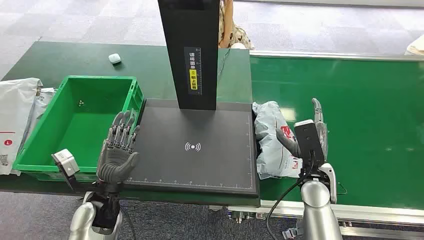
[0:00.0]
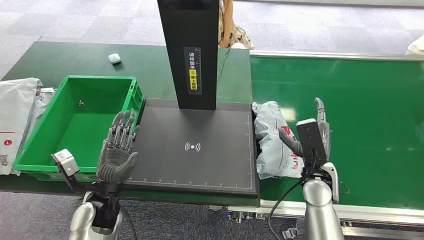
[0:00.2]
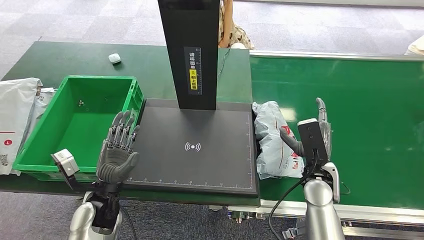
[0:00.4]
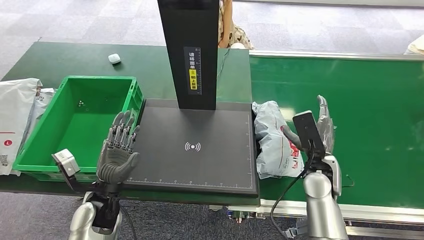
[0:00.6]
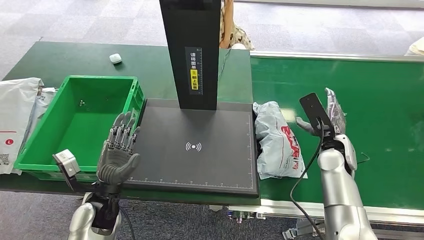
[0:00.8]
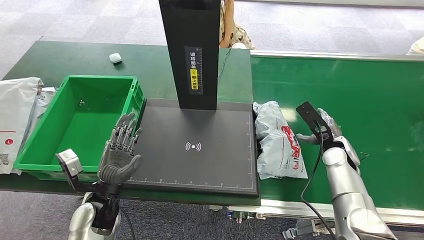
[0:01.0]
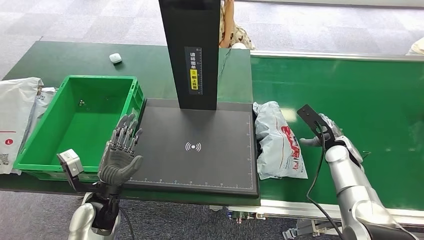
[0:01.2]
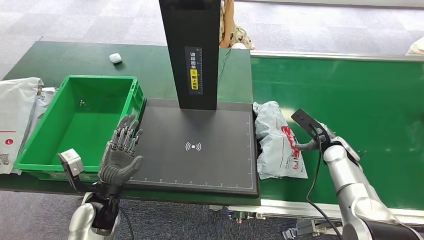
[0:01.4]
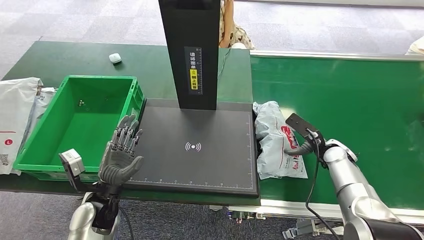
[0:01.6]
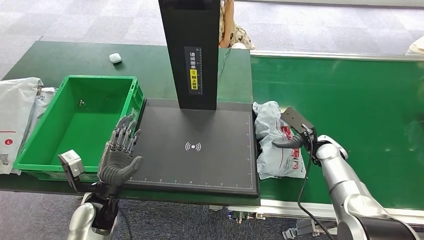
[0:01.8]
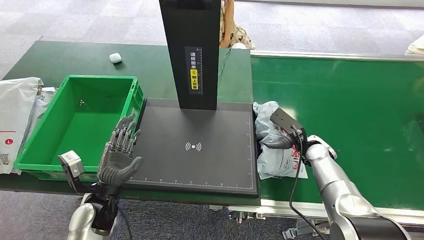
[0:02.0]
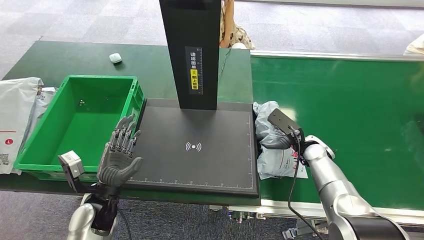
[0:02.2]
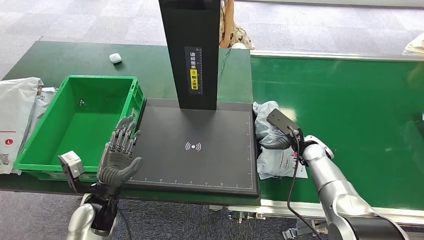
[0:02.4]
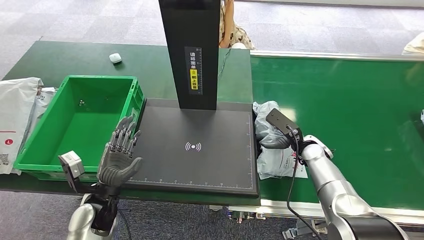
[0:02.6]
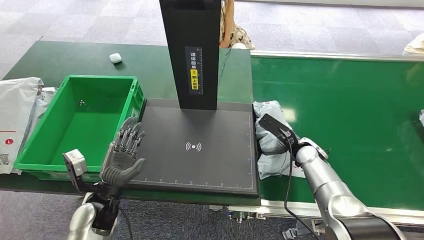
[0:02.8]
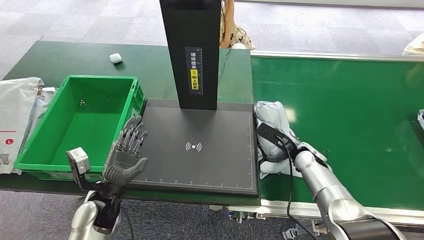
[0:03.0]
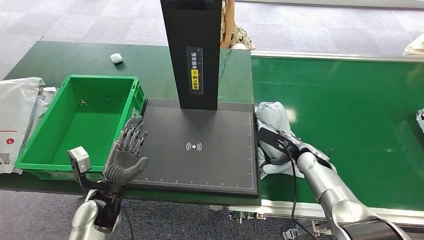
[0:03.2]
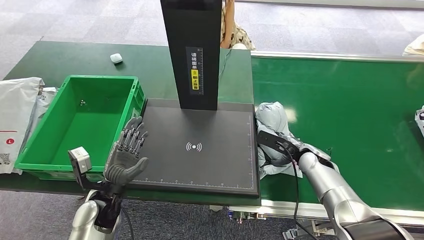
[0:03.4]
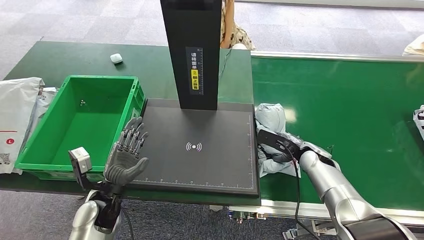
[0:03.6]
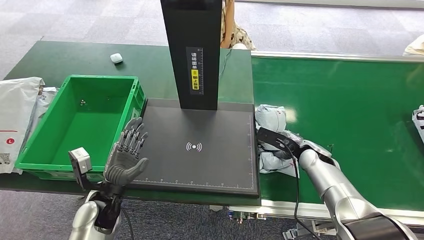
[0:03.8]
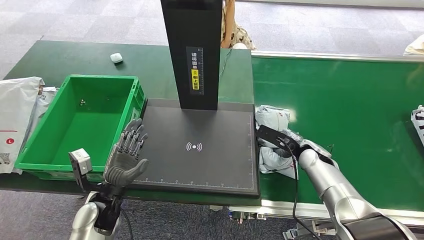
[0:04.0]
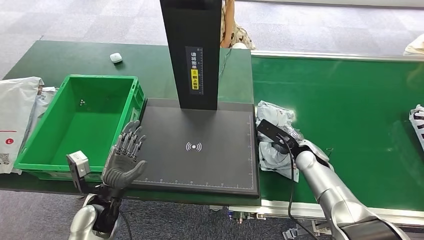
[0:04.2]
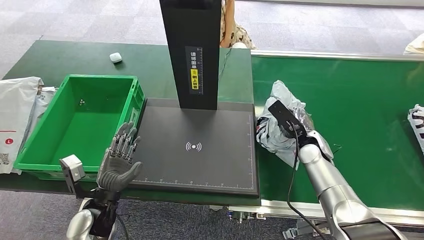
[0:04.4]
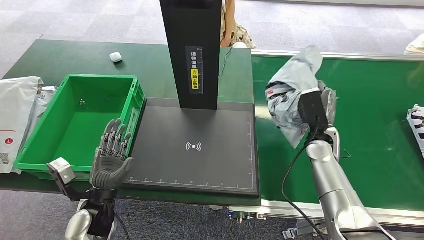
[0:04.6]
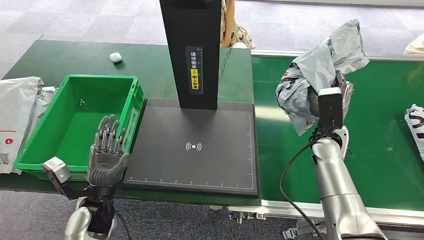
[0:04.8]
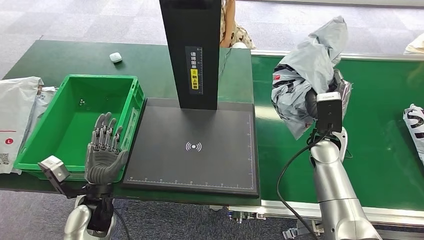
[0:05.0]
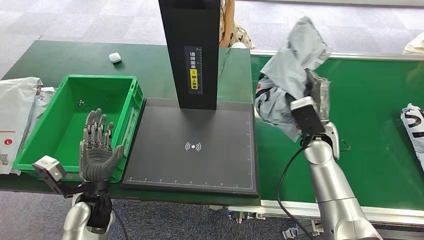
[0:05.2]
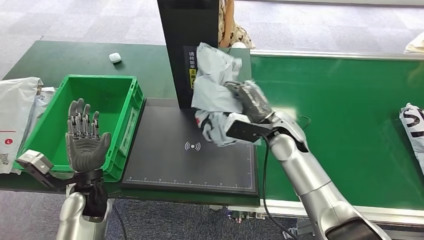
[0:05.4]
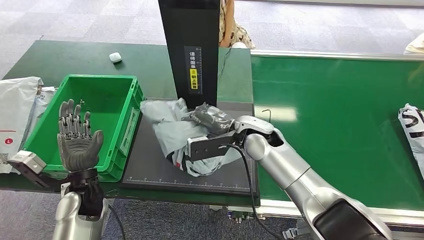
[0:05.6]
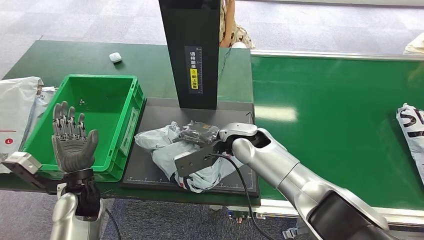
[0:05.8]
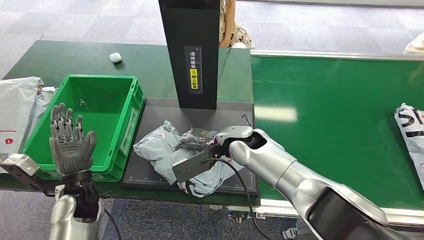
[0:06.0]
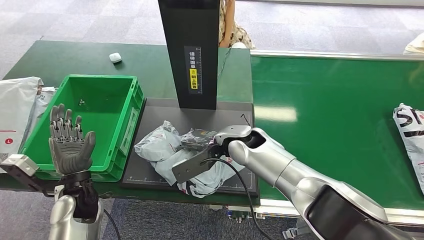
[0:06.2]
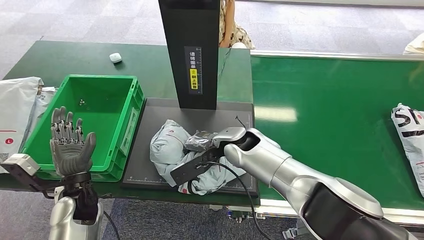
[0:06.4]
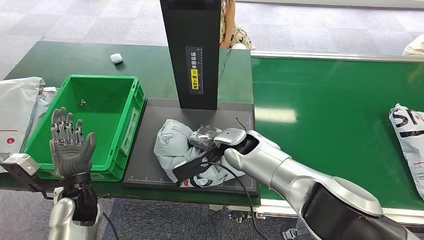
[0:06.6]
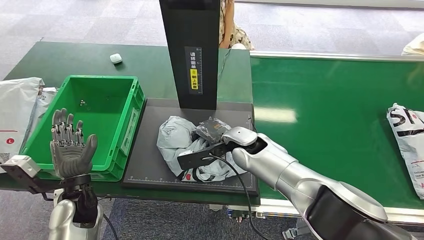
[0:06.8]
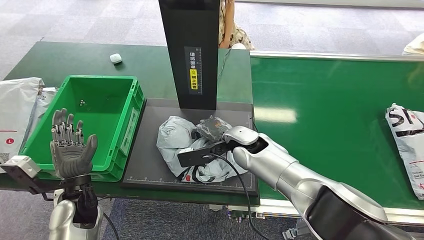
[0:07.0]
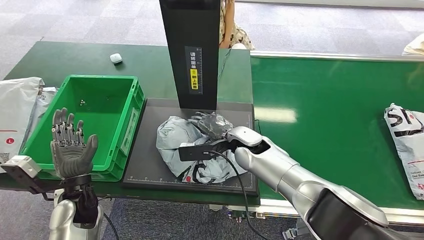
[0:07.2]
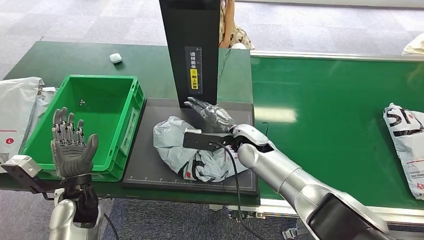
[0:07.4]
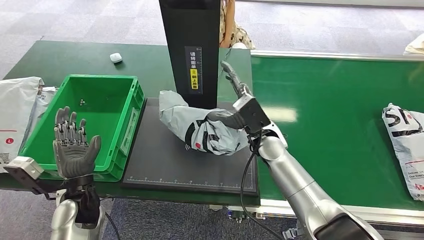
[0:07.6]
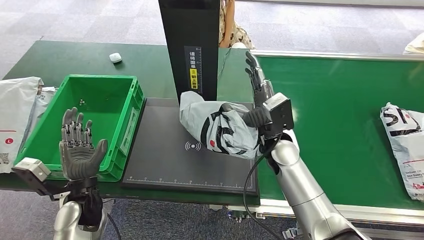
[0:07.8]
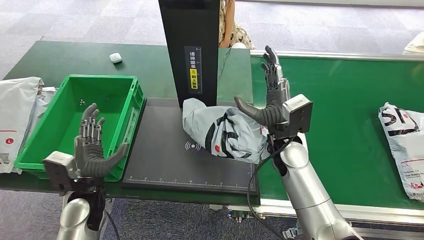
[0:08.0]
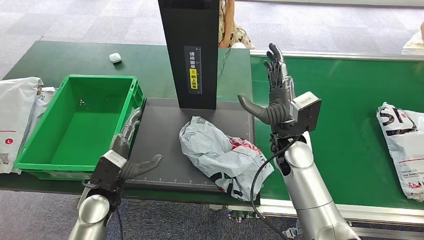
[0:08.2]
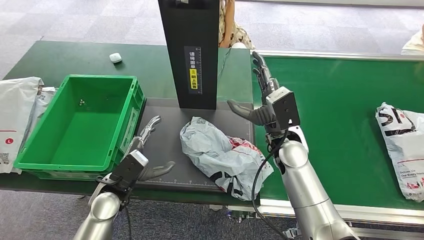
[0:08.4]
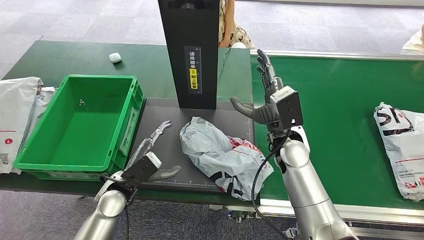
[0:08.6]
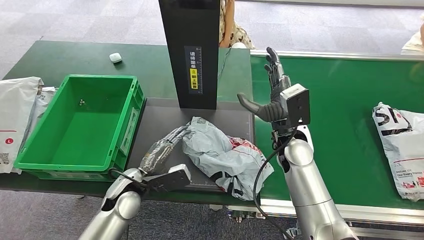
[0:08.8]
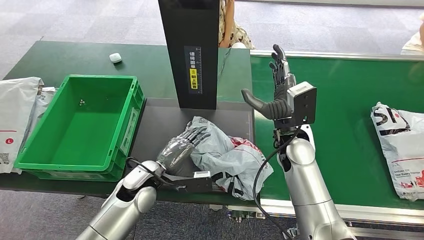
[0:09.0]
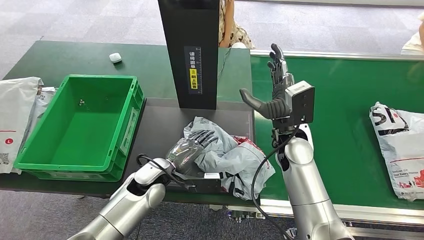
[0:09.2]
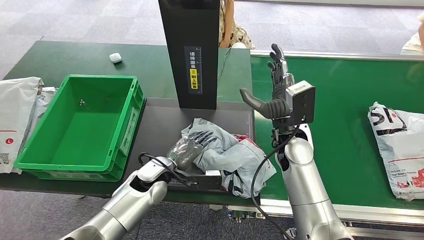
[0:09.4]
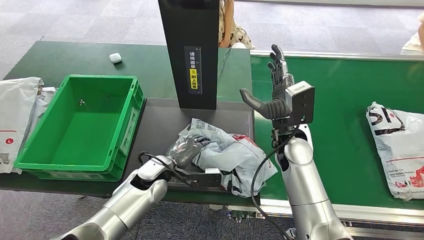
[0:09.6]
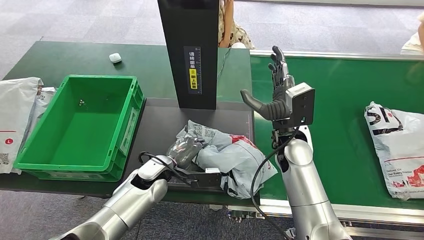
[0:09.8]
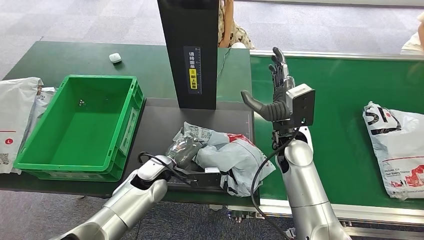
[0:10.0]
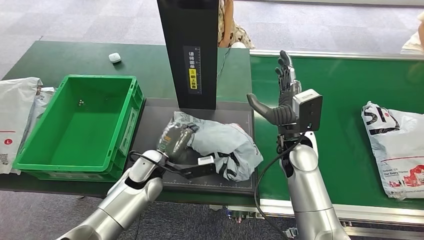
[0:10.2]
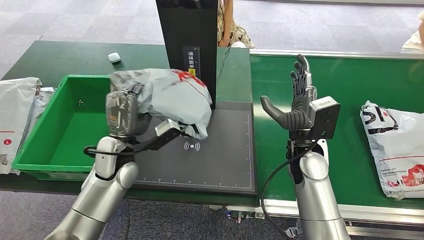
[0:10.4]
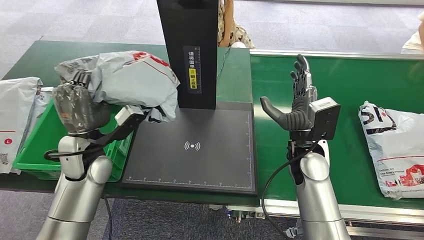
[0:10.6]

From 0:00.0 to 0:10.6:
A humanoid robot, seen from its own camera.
Step, from 0:00.0 to 0:04.6: Pick up the package from the conveyor belt.
Step, from 0:04.8 to 0:08.6: Place the package onto the inbound machine.
Step, from 0:08.8 to 0:10.4: Pick up the package from the inbound machine.
From 0:01.6 to 0:03.0: The right hand heads to the left, covering roughly 5 cm.
From 0:03.0 to 0:04.6: The right hand is displaced upward by roughly 5 cm.

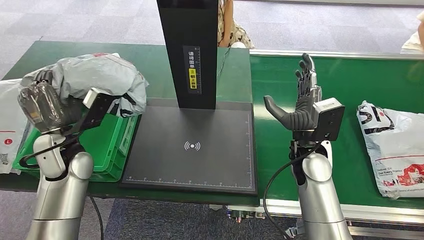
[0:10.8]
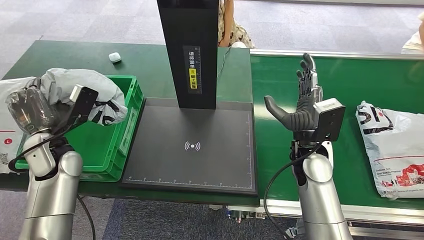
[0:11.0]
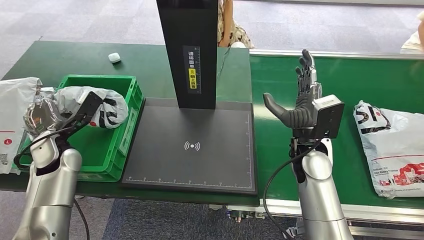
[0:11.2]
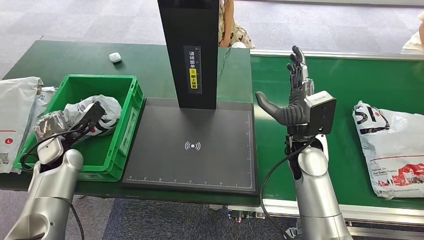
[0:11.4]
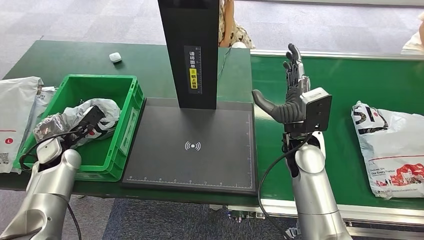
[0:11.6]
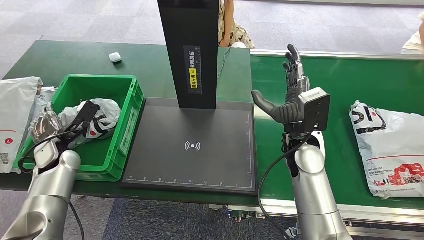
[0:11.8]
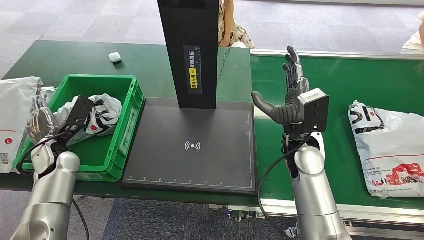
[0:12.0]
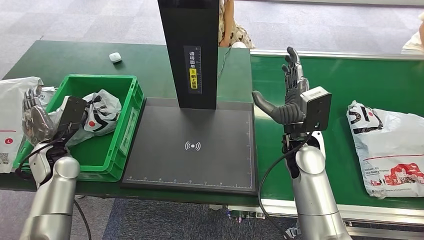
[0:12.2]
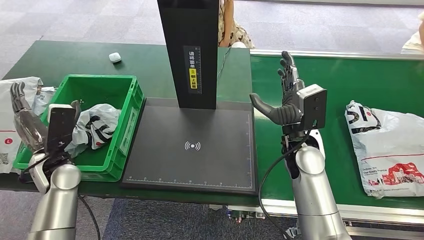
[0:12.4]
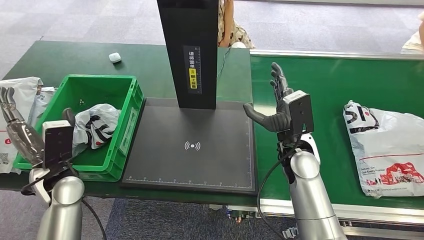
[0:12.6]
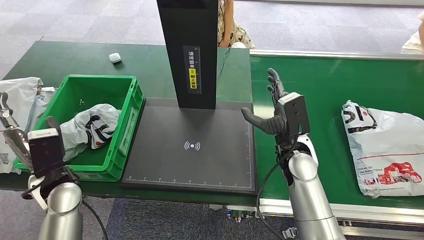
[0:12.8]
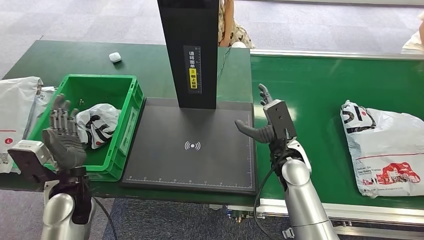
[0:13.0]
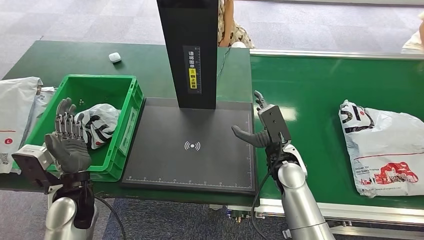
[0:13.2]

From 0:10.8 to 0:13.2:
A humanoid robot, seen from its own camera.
Step, from 0:10.8 to 0:13.2: Place the package into the parcel locker.

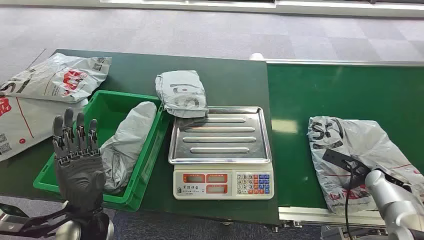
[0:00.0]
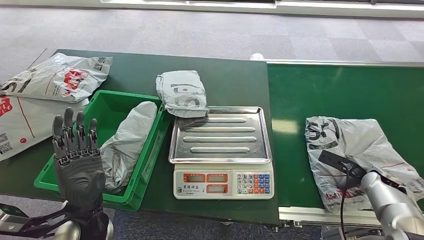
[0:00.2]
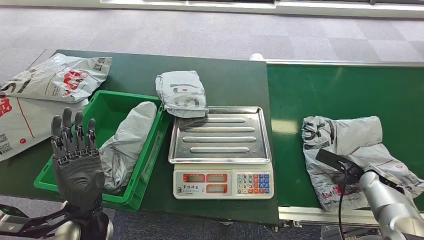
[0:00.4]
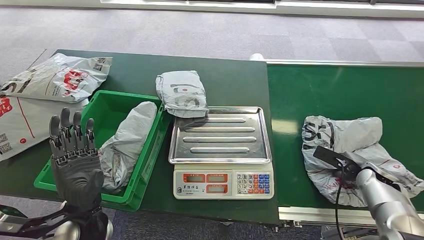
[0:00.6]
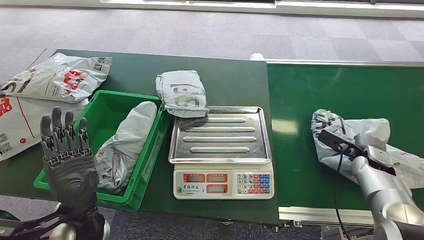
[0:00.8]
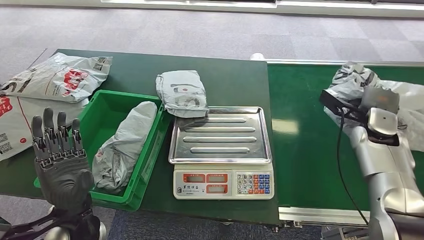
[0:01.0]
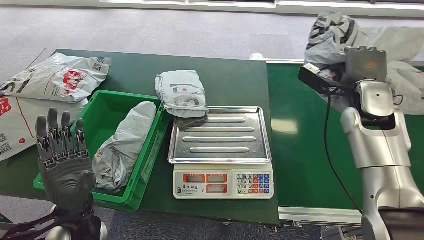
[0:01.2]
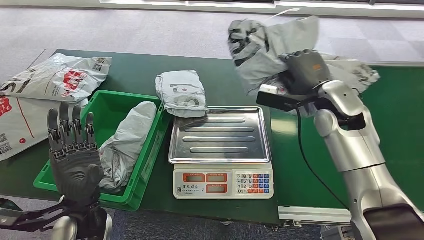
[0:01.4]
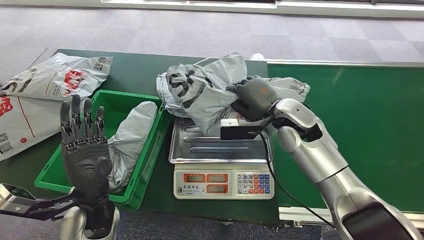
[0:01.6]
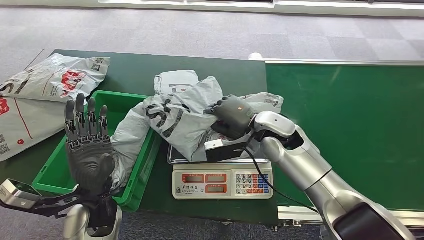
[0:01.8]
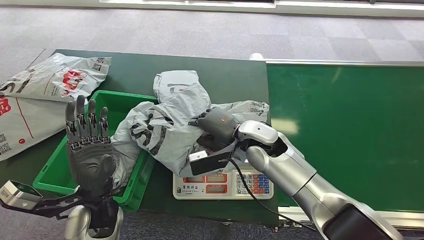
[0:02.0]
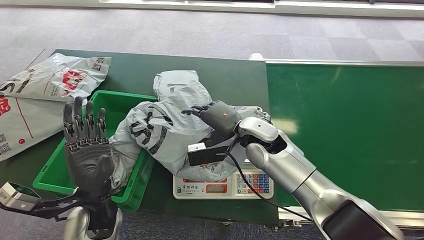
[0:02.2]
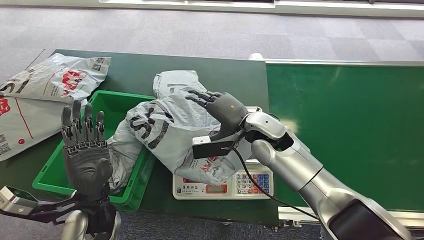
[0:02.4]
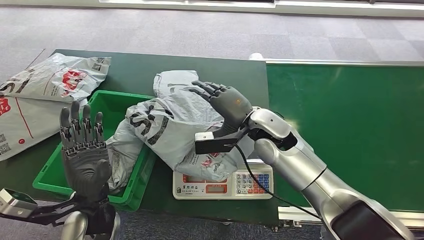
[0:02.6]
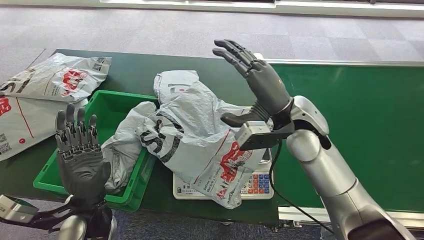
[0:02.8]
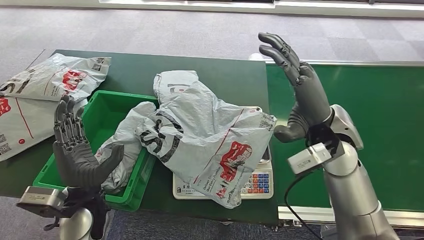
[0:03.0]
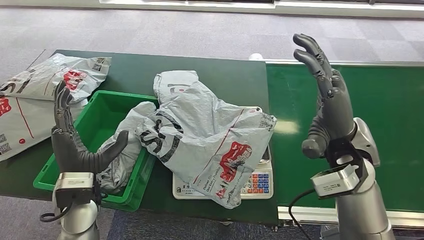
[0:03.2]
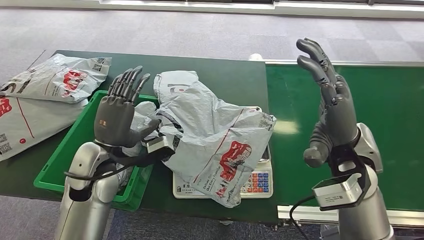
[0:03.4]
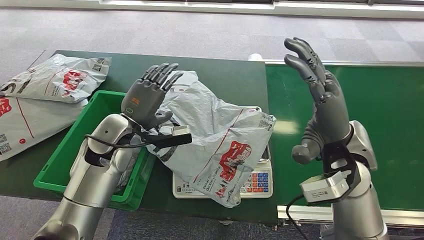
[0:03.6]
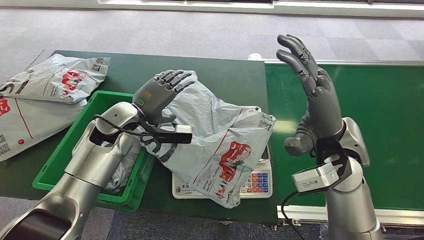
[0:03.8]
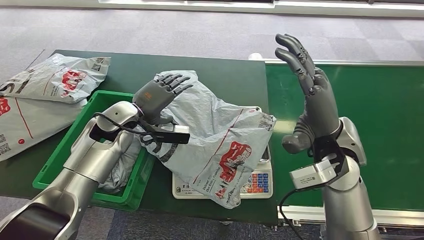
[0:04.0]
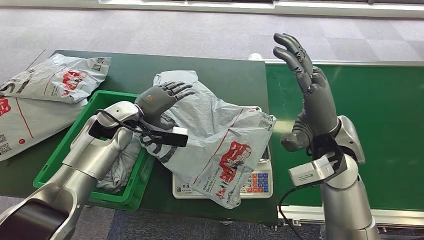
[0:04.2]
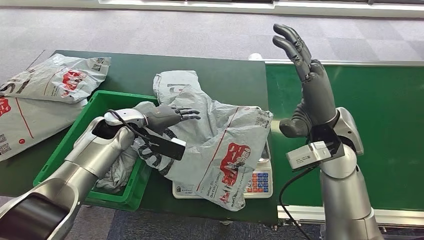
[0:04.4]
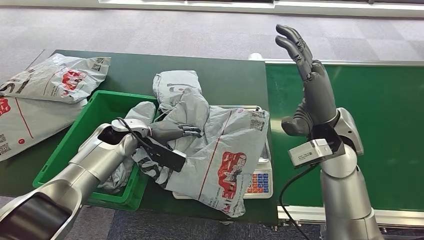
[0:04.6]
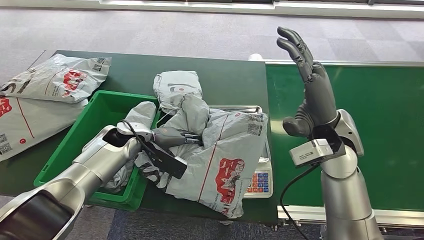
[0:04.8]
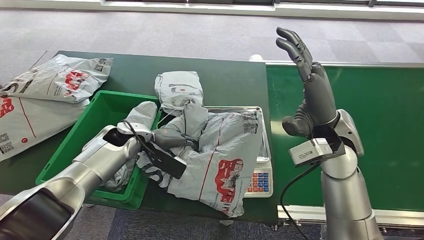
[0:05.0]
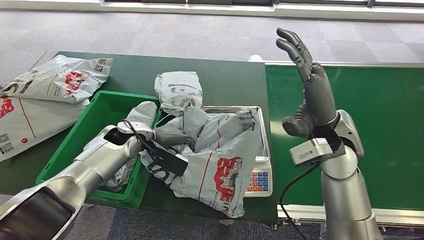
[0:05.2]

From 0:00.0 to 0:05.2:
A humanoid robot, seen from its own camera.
Step, from 0:00.0 to 0:01.0: Pick up the package from the conveyor belt.
Step, from 0:01.4 to 0:02.6: Place the package onto the inbound machine.
